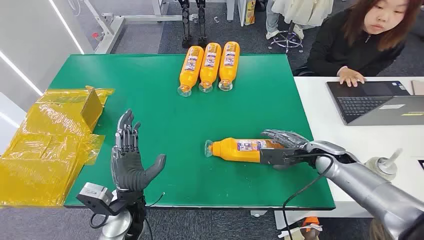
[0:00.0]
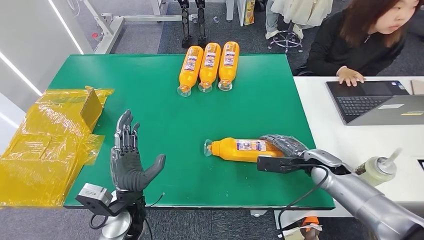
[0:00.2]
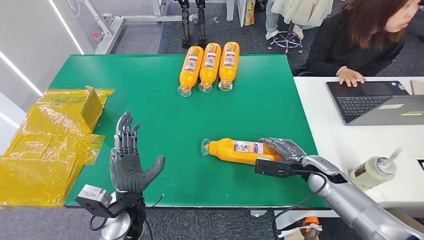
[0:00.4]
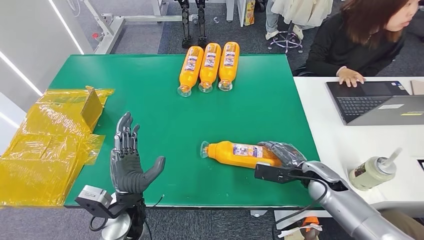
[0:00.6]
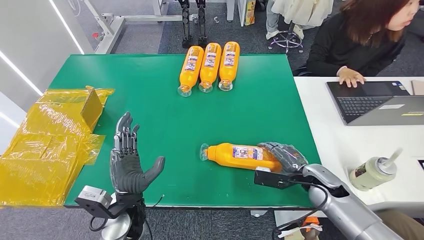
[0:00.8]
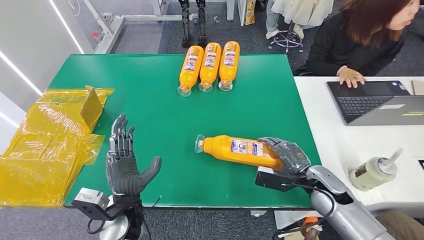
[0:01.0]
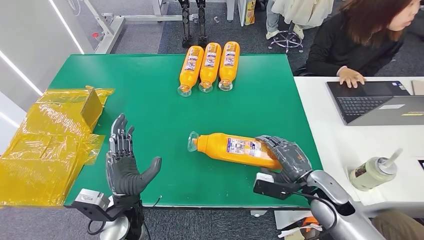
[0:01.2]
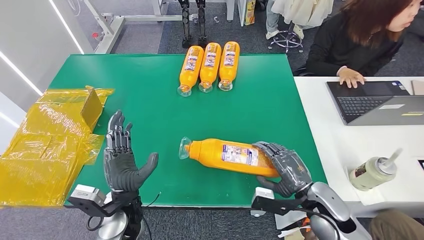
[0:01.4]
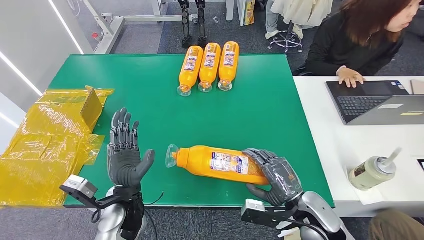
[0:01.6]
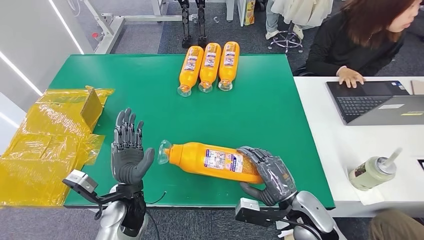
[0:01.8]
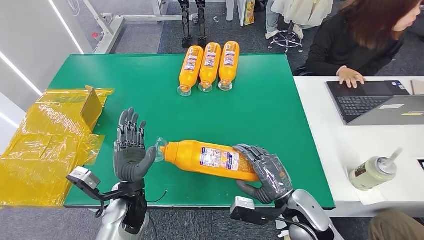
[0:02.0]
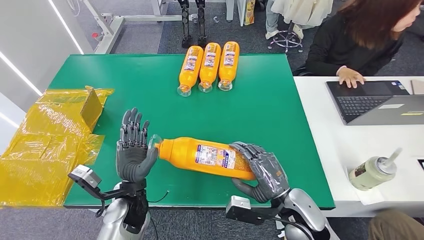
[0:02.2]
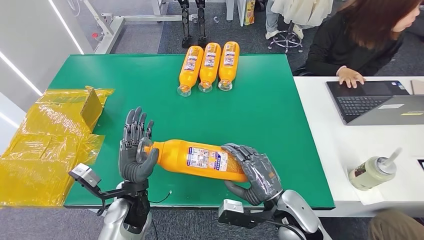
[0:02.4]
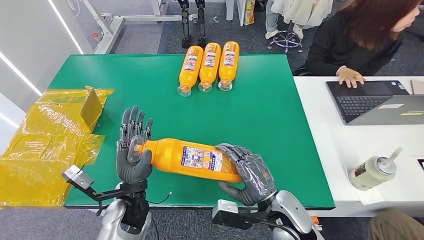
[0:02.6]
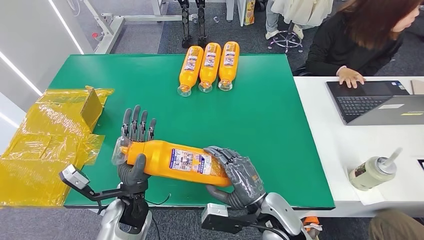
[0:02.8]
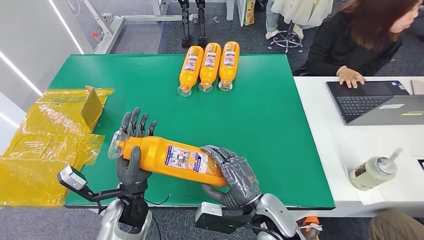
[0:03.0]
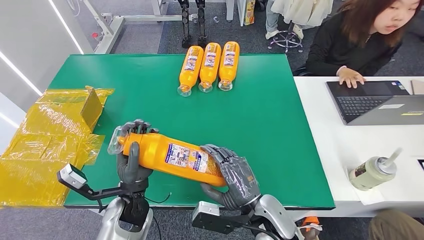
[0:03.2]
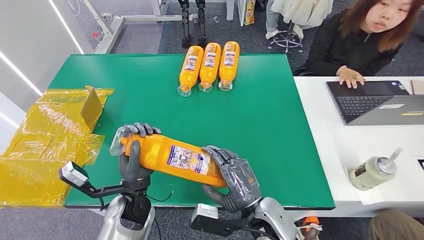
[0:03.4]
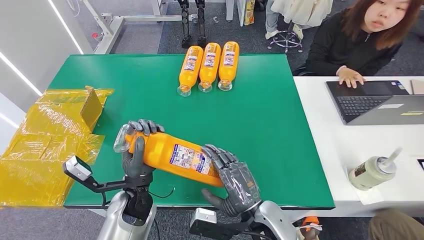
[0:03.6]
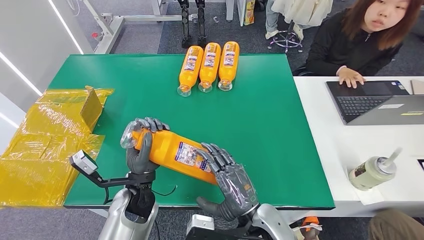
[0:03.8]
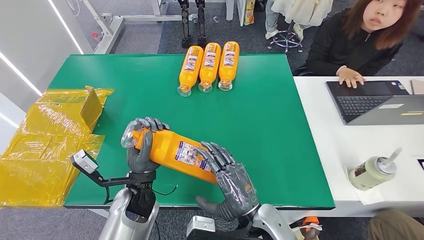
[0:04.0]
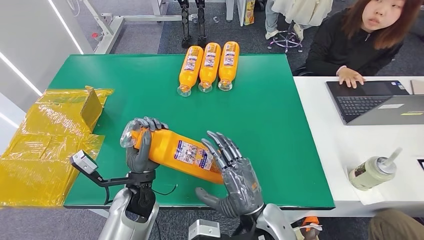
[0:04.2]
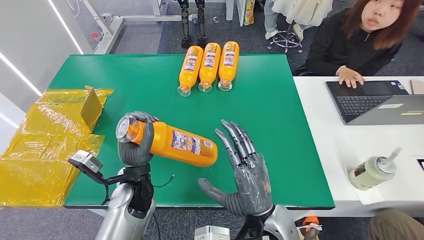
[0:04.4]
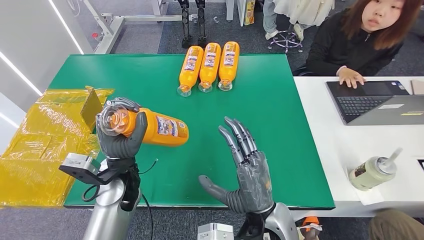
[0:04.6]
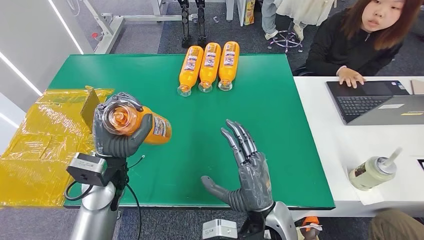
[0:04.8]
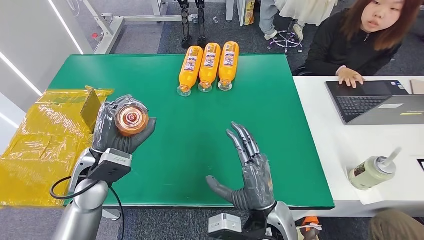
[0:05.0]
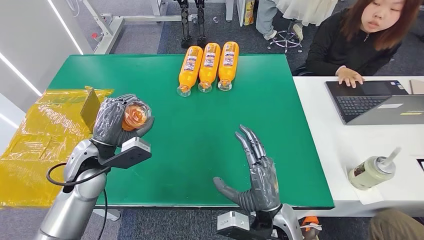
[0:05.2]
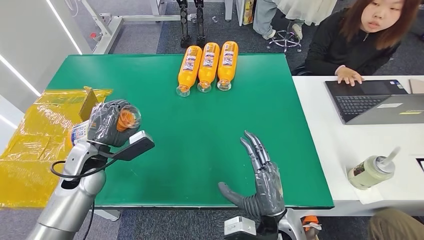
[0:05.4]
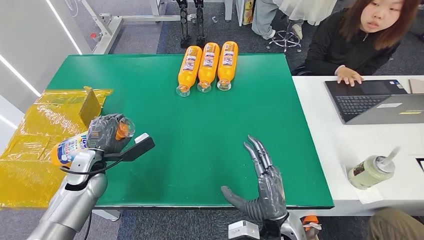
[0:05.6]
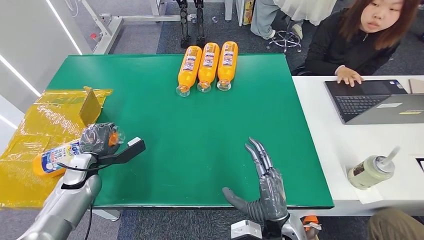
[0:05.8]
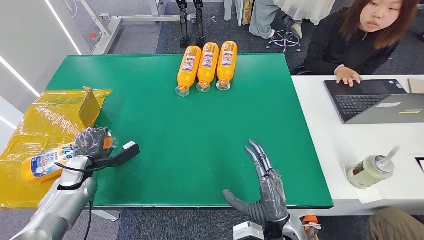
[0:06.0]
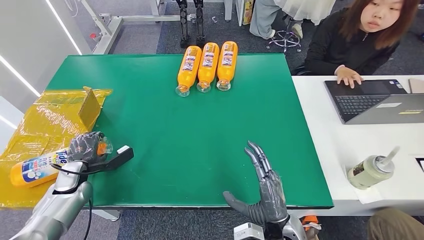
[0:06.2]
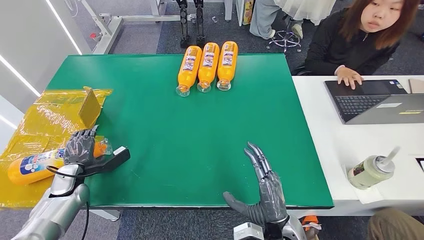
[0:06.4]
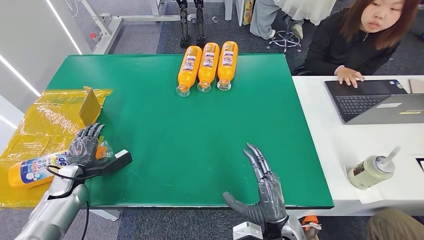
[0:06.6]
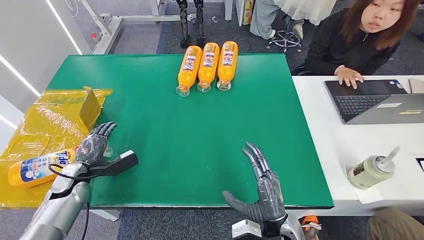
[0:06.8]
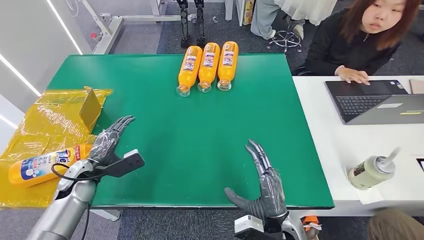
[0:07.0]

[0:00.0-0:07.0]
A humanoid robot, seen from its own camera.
Step, 0:00.0 to 0:01.4: Pick up the bottle from the table.
Step, 0:01.6 to 0:06.8: Turn the bottle to the front side.
0:01.4 to 0:02.8: The right hand travels to the left by approximately 15 cm.
0:02.8 to 0:04.2: The right hand ends up roughly 5 cm from where it was.
0:05.6 to 0:07.0: The left hand is displaced to the left by about 5 cm.

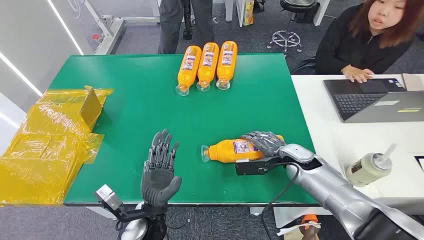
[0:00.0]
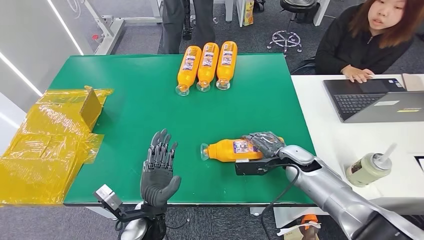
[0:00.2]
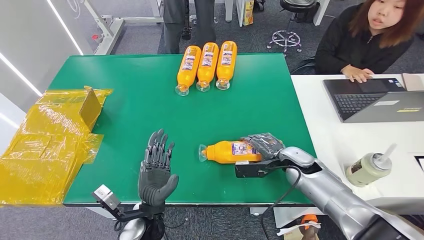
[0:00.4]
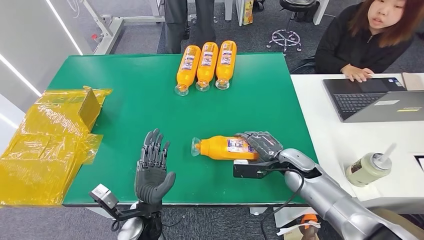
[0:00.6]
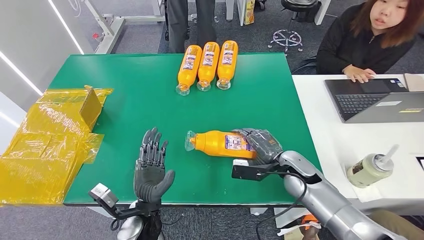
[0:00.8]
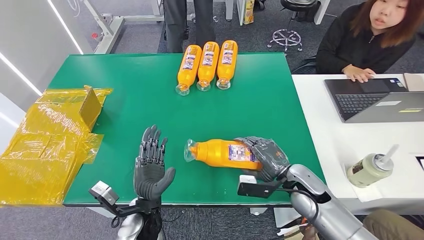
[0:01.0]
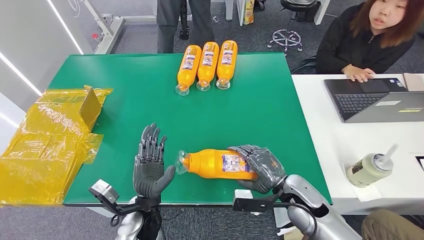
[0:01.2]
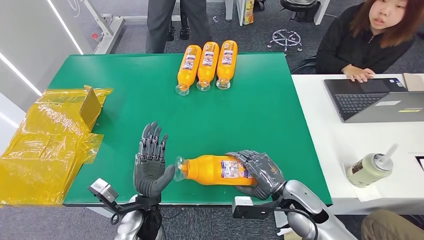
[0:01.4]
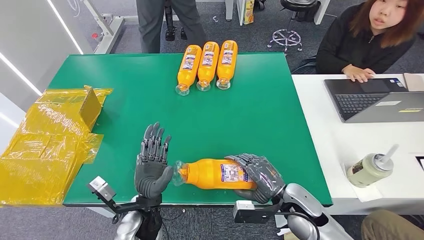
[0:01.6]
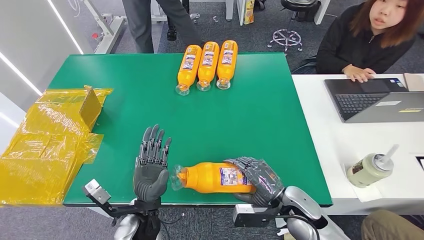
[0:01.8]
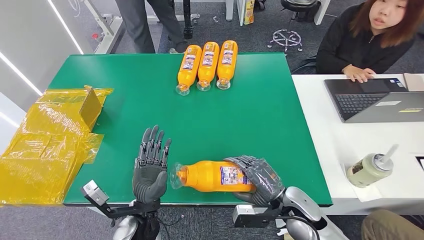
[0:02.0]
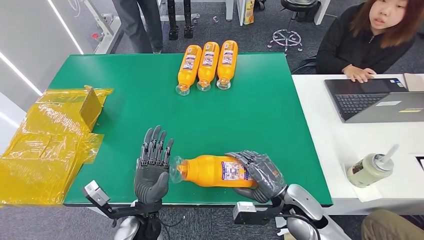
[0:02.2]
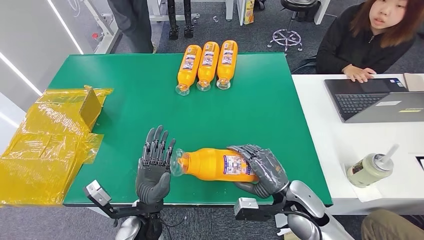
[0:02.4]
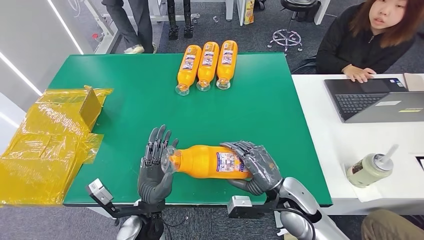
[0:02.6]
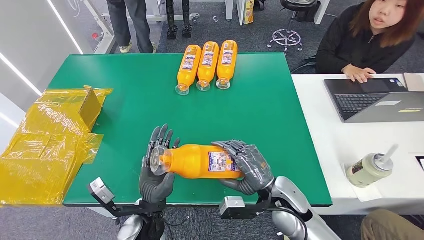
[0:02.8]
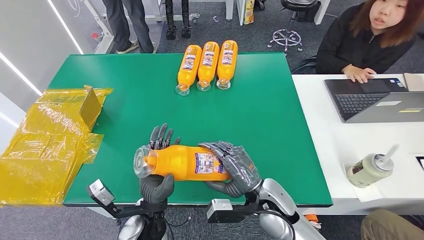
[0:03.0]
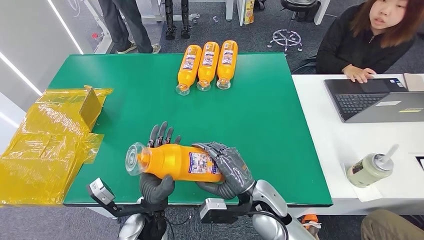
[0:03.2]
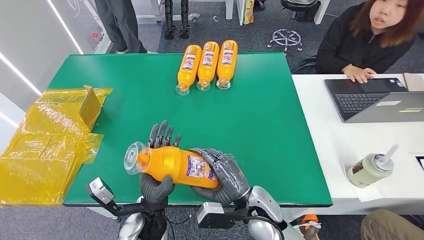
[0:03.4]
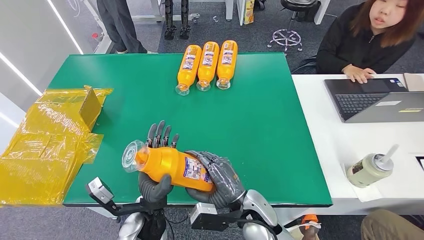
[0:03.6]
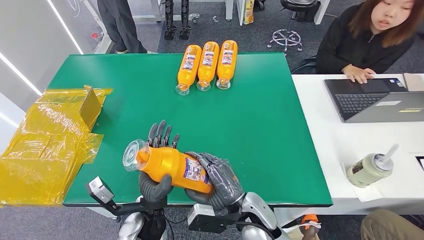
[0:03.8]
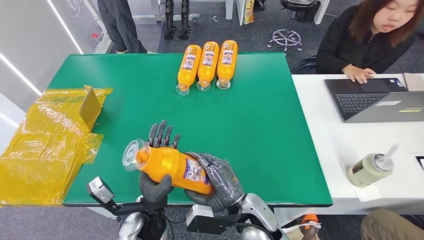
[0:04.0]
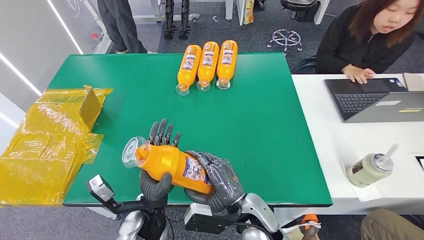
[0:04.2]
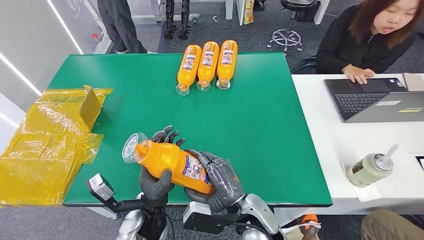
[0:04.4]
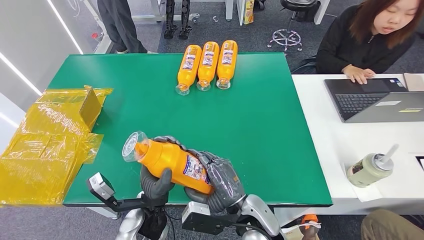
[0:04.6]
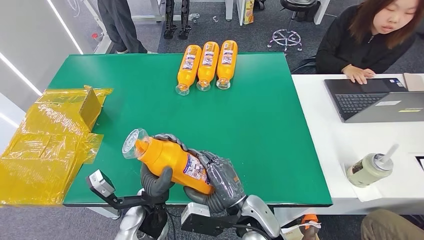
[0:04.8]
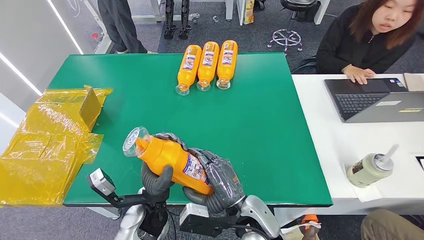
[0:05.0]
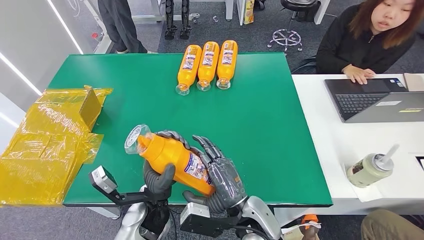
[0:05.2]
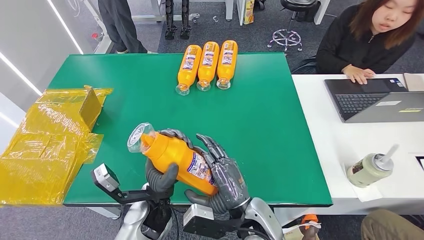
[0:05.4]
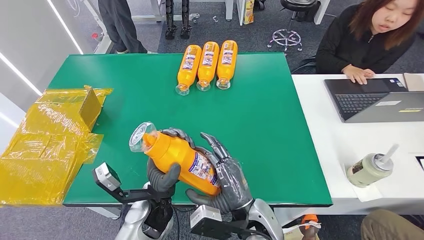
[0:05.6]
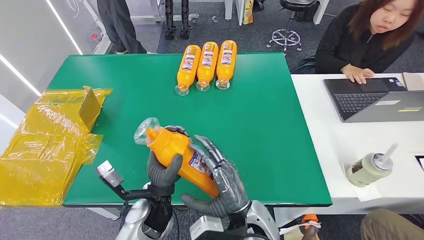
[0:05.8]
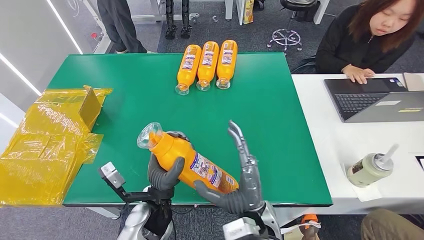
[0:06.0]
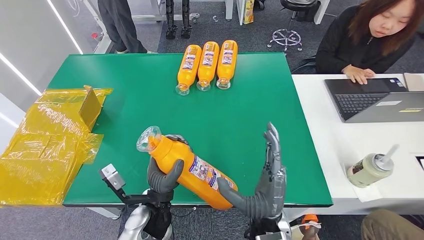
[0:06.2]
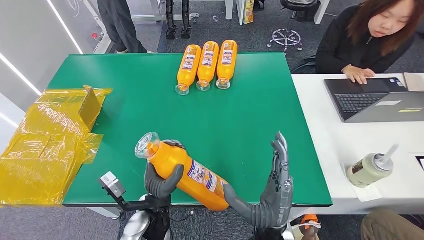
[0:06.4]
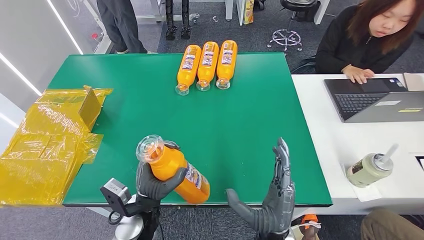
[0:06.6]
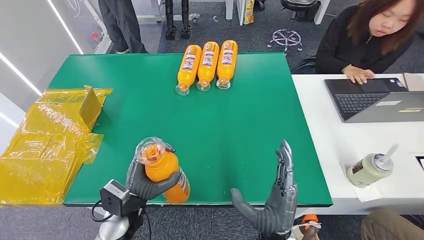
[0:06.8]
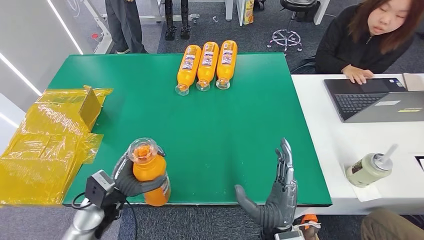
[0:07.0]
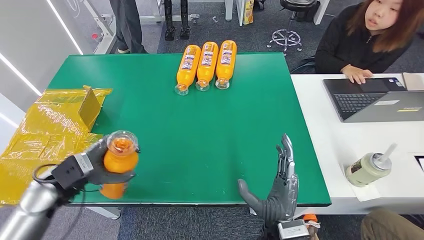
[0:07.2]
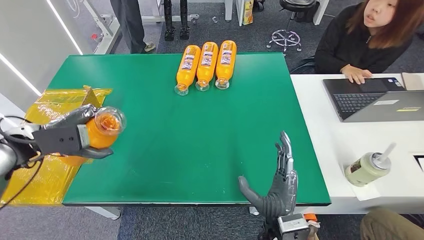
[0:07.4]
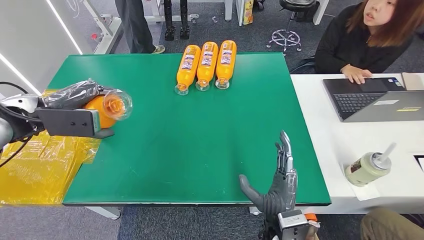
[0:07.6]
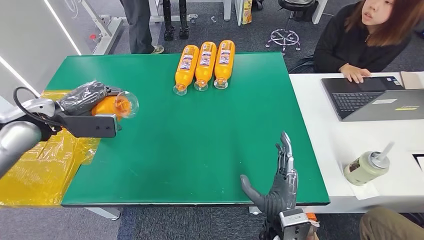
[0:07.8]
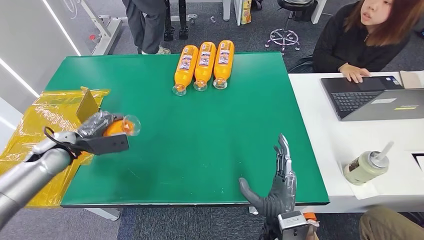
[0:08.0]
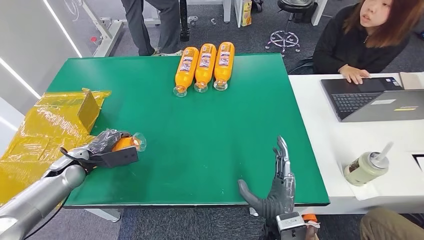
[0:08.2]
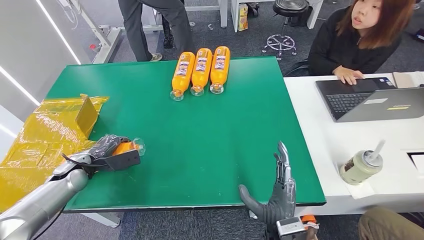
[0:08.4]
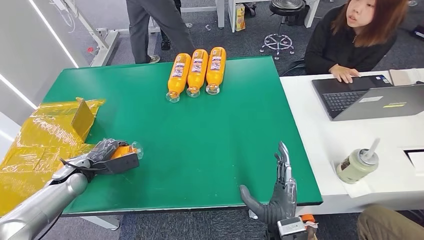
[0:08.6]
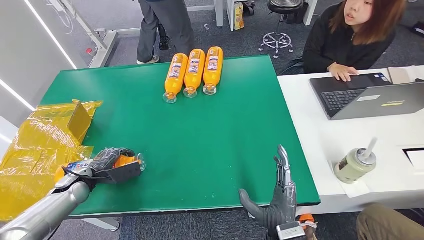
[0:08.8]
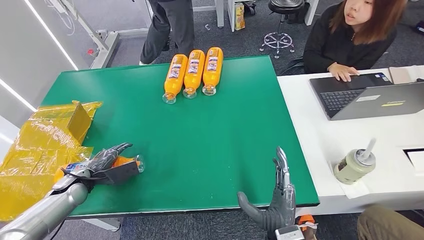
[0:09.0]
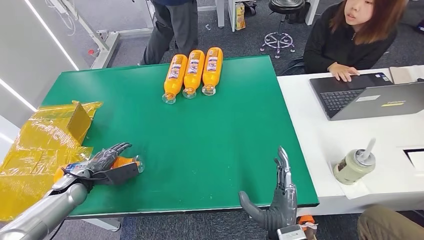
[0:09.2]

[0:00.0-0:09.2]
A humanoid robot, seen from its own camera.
Step, 0:00.0 to 0:03.0: Pick up the bottle from the table.
Step, 0:03.4 to 0:09.2: Turn the bottle to the front side.
0:01.6 to 0:03.0: The right hand is displaced to the left by approximately 10 cm.
0:03.0 to 0:04.6: The right hand travels to the left and backward by roughly 10 cm.
